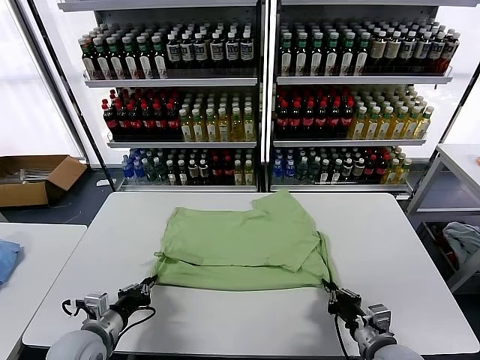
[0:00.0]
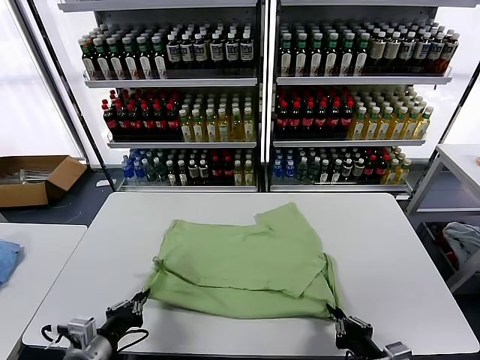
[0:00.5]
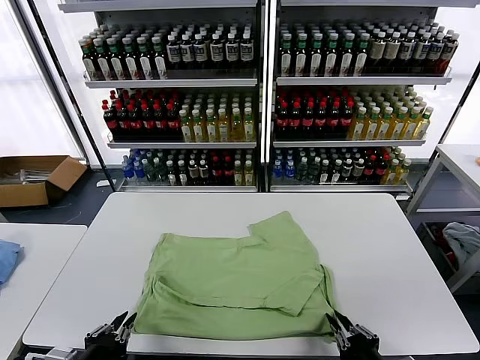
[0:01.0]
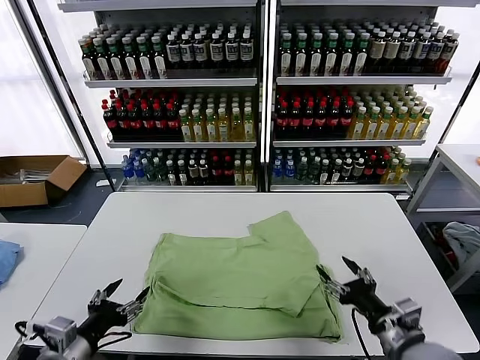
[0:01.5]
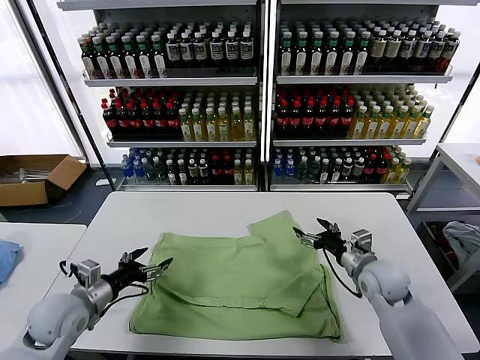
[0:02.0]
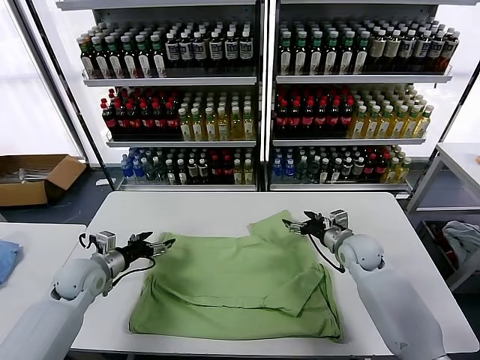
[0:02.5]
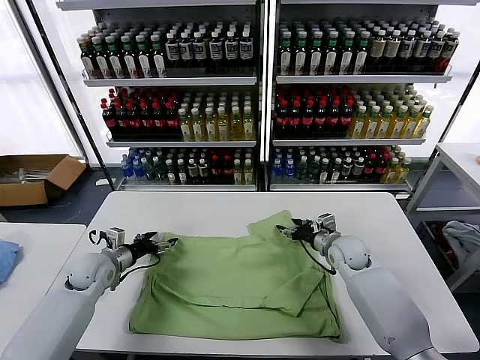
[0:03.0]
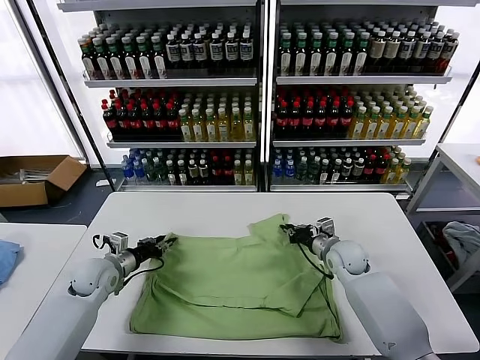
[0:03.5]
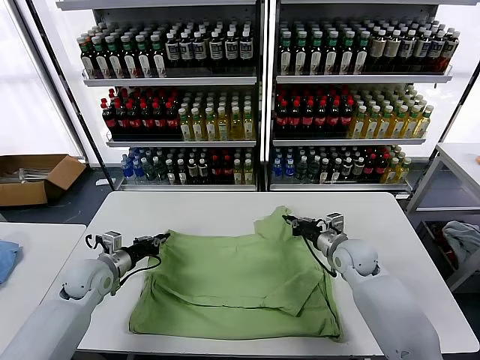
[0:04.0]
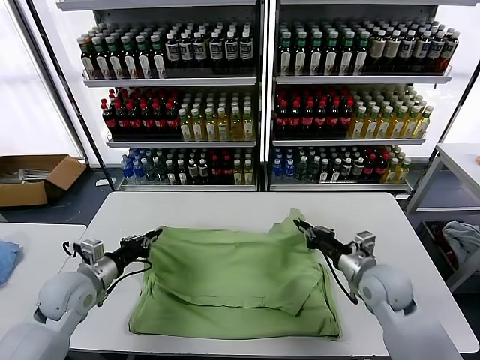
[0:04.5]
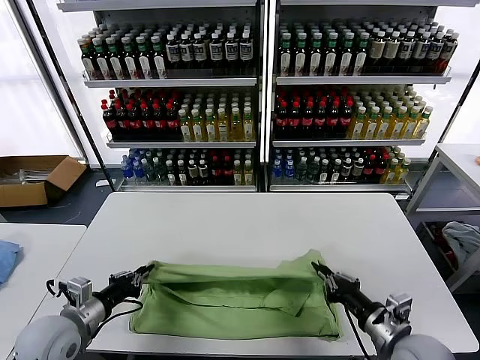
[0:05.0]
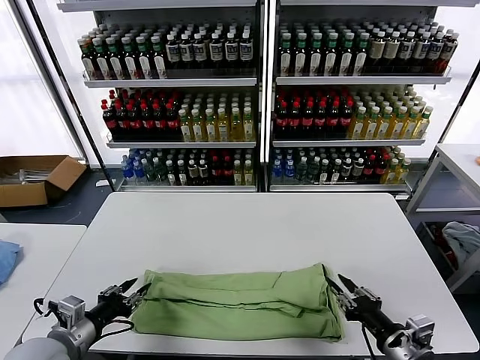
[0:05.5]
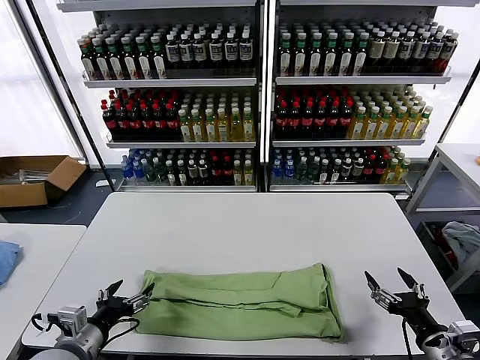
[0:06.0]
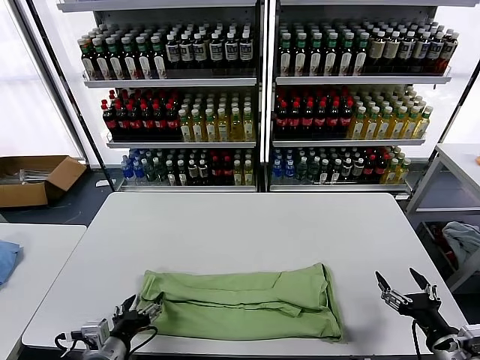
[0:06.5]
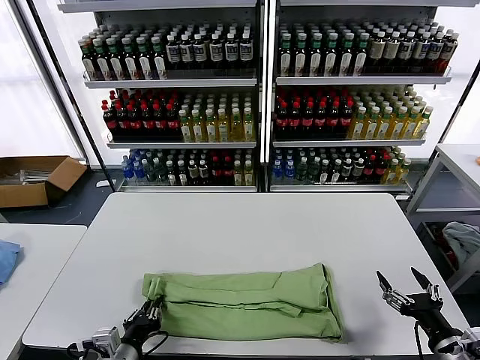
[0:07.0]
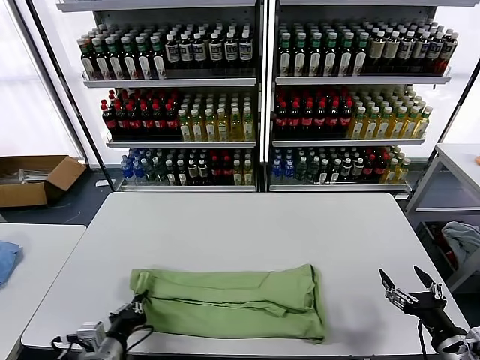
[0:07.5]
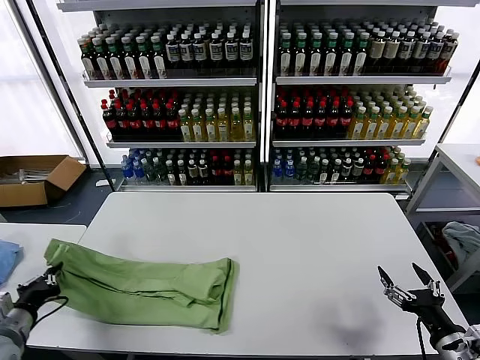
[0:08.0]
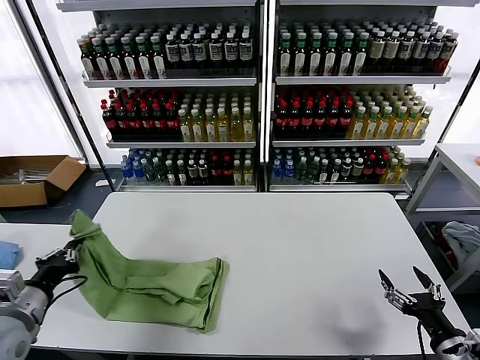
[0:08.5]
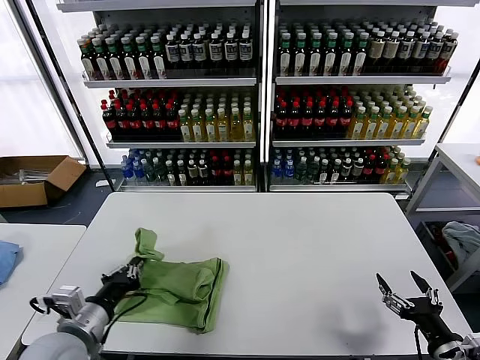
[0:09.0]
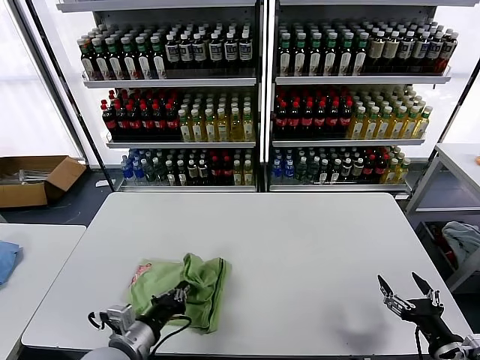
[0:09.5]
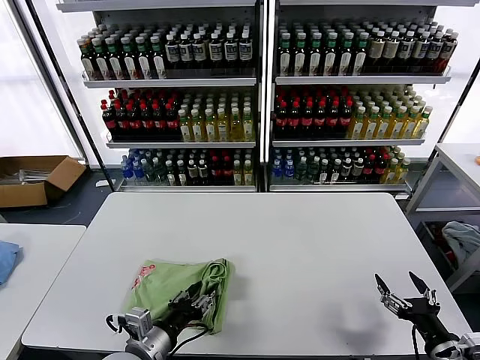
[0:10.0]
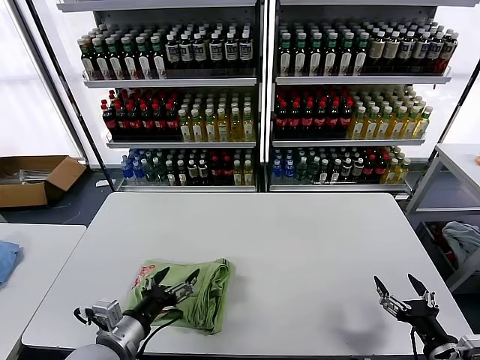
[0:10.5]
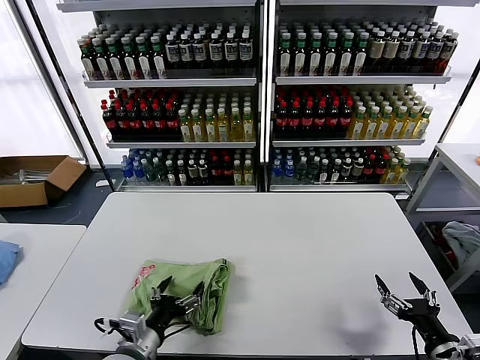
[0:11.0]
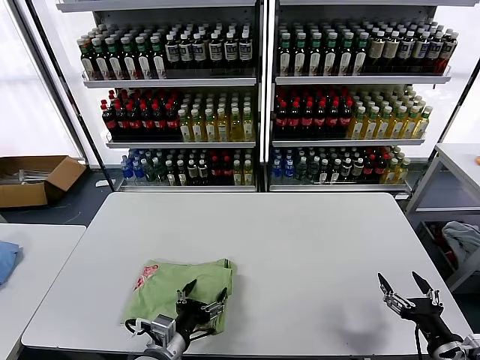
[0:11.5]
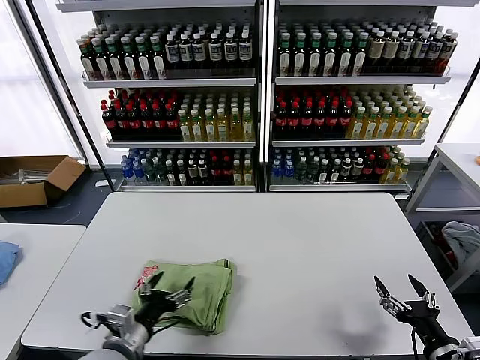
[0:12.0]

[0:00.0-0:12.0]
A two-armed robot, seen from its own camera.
Task of the whole recording: fold and organize the clothes.
Step, 1.5 to 3.5 s: use both grippers simultaneously to clamp the upper edge of the clothing fabric.
Step, 4.0 to 5.0 s: use both grippers to drag the upper edge of the fabric backward and fold it over the lower edge.
Step, 5.5 to 7.0 s: use the left gripper to clamp the left edge of the fabric.
Step, 7.5 to 10.0 s: use the left gripper to drag the left edge of the fabric to the left and folds it over the right edge.
0.0 to 2.0 s: The left gripper moves some 10 cm backward and comes back, and opens. Meanwhile the right gripper is displaced forward by about 20 cm, and opens.
2.0 to 4.0 s: The left gripper travels forward by approximately 10 cm, and closes its fingers, while the right gripper closes its fingers.
4.0 to 6.0 s: The grippers both shift backward by roughly 25 cm. The right gripper opens its fingers; the left gripper opens its fingers.
6.0 to 8.0 s: The left gripper heads to the left, covering roughly 15 cm, and closes its fingers.
8.0 to 10.0 s: The left gripper heads to the right, covering some 25 cm, and opens up.
10.0 to 12.0 s: The left gripper swings left and right, some 5 cm each way, with 2 reversals, and opens its fingers.

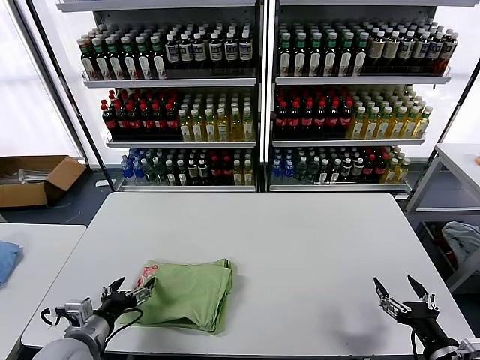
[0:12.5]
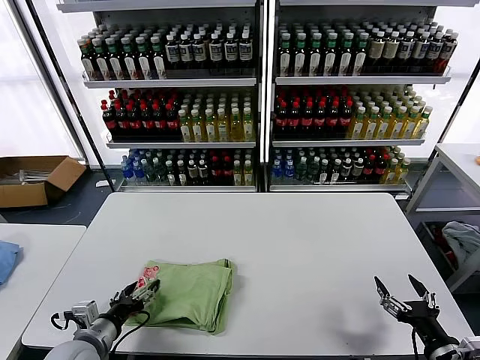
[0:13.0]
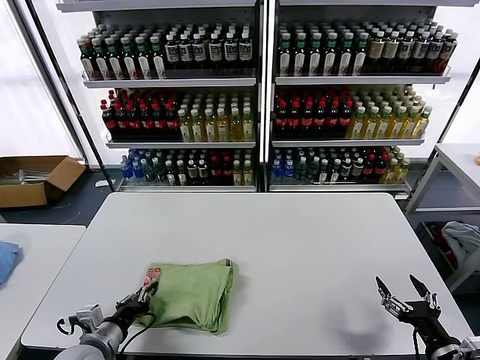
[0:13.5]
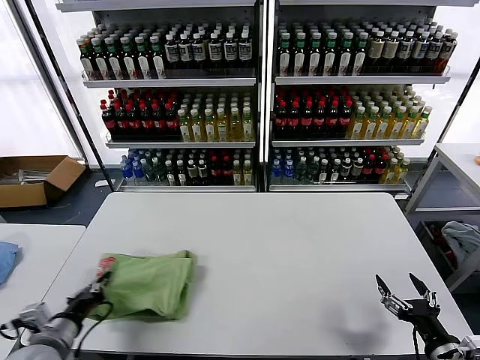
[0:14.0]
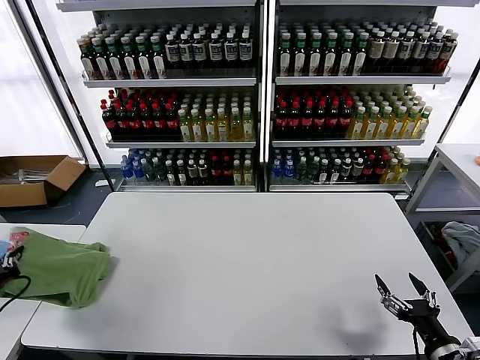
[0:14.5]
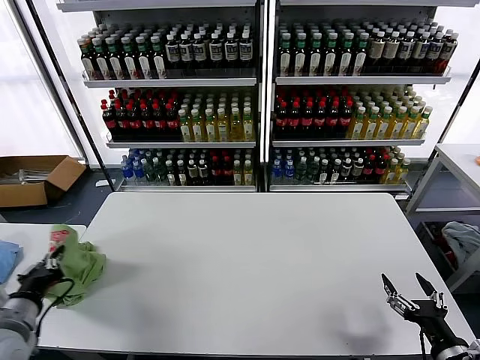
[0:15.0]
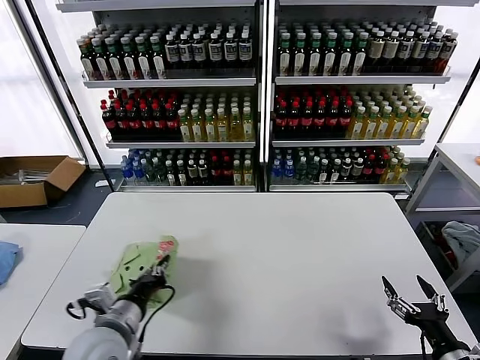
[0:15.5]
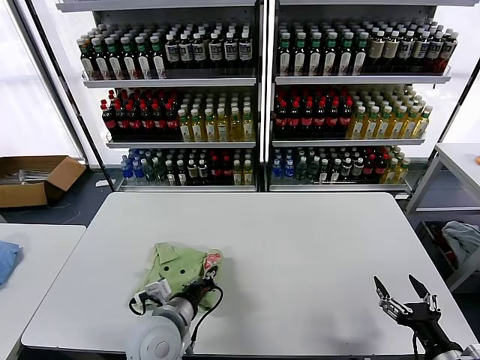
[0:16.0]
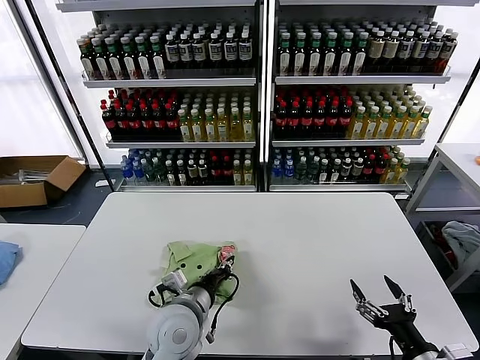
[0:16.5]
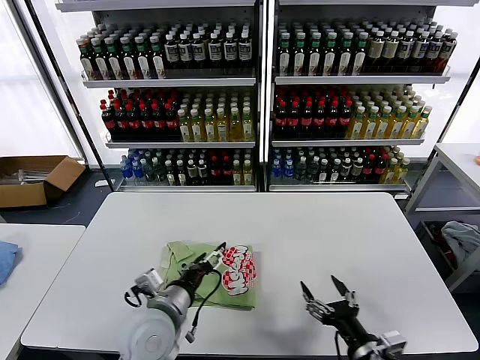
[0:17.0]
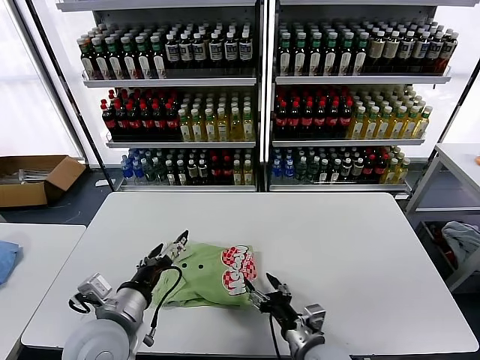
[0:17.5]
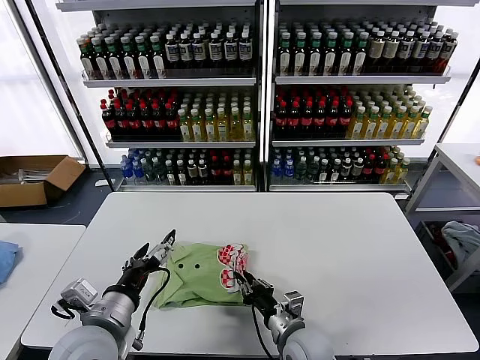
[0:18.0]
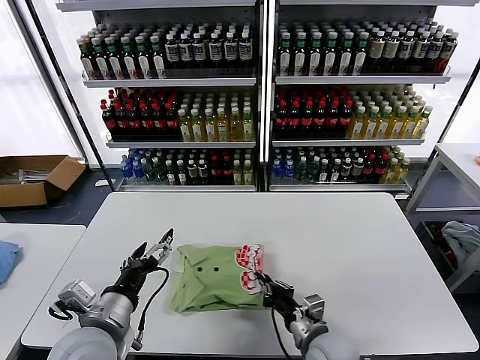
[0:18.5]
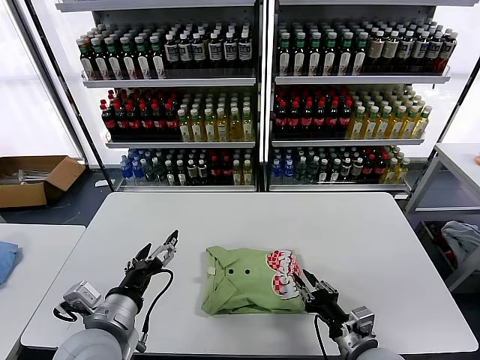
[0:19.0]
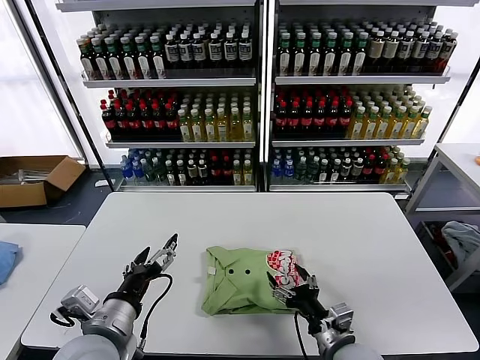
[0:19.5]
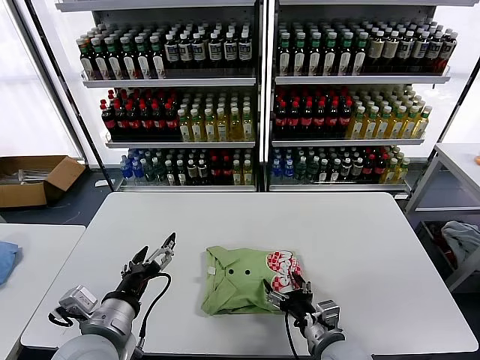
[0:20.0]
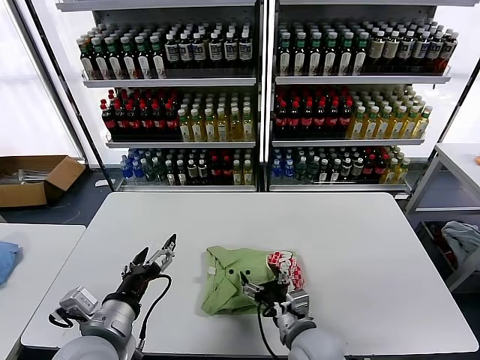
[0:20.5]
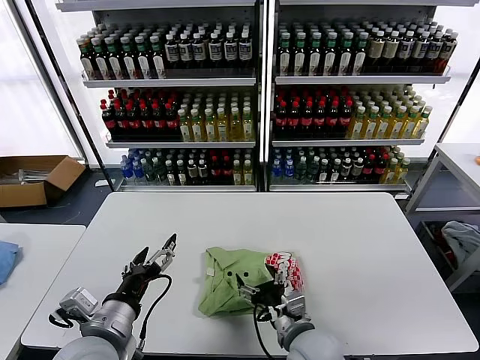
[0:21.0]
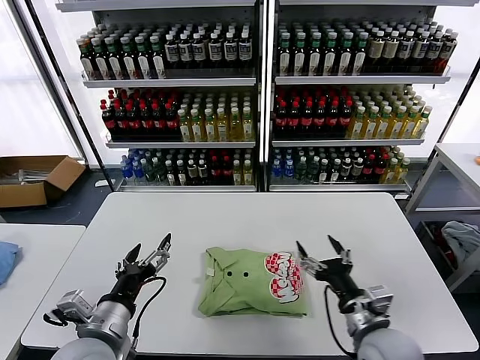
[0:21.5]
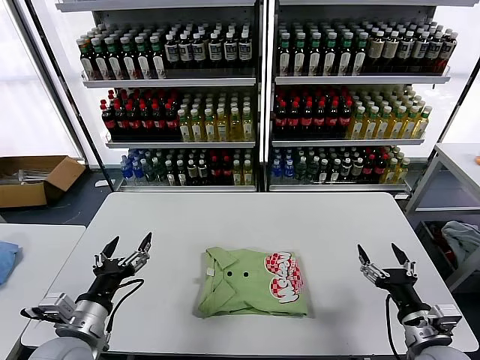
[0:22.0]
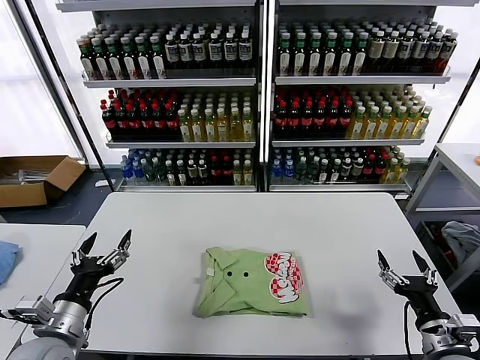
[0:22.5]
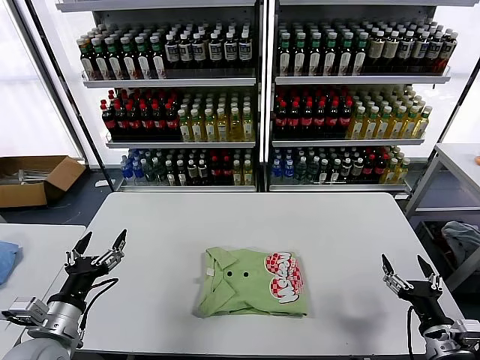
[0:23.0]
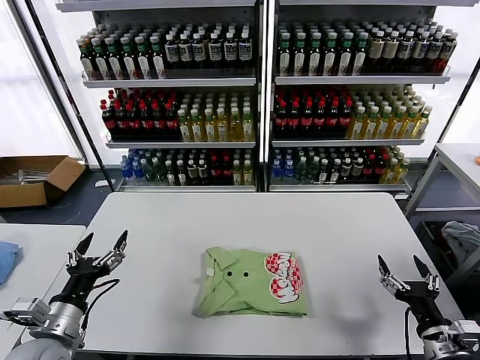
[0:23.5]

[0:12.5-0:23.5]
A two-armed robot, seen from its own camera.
Task of the whole recording: fold and organize the clothes.
Step, 12.5 to 16.5 s: Flip the folded clothes over with left gripper.
Step, 17.0 to 20.5 s: Drag the clothes to the center of the table.
12.5 to 14.5 s: The left gripper goes approximately 20 cm to the left and upward, and closes its fingers.
14.5 to 16.0 s: The left gripper goes some 30 cm to the right.
16.0 to 18.0 s: The left gripper is displaced upward and to the left by approximately 10 cm, and opens. Meanwhile the right gripper is displaced to the left and forward by roughly 30 cm, and closes.
18.0 to 20.0 s: The right gripper goes some 5 cm to the right, and opens up.
20.0 to 21.5 s: The right gripper is displaced upward by some 5 cm.
21.5 to 23.5 s: The right gripper heads to the right, covering approximately 15 cm; the left gripper moves to the left, approximately 10 cm.

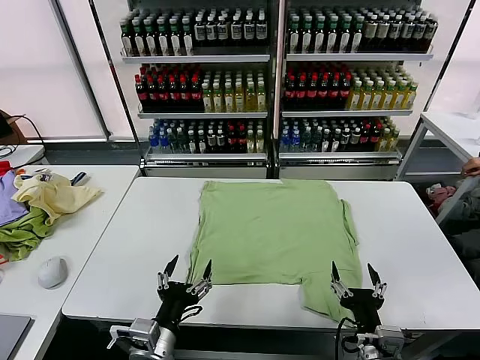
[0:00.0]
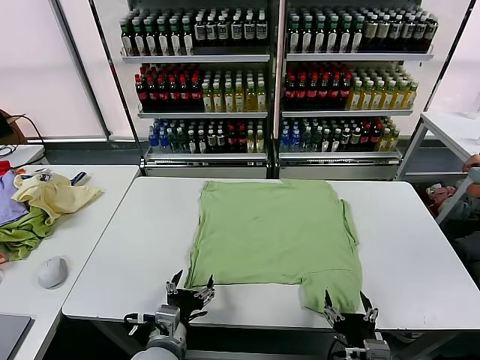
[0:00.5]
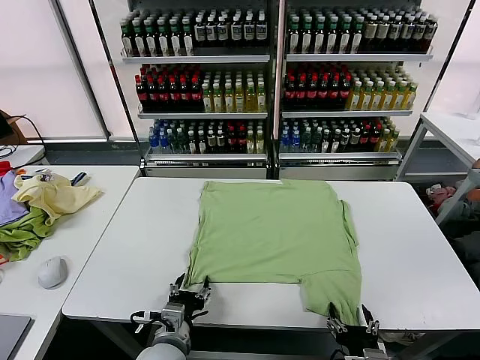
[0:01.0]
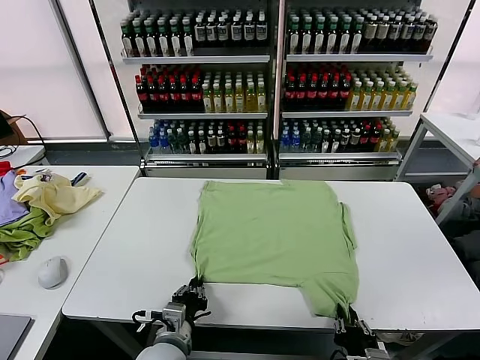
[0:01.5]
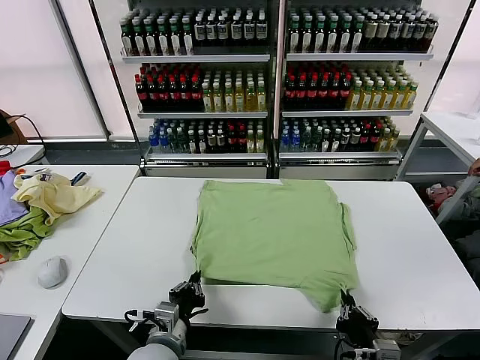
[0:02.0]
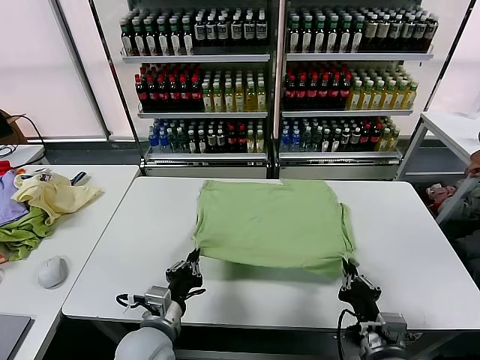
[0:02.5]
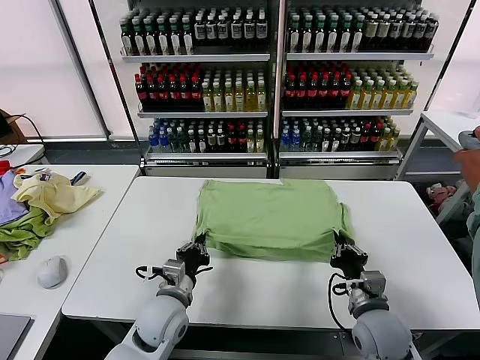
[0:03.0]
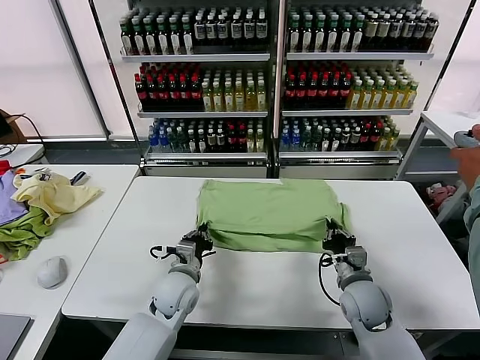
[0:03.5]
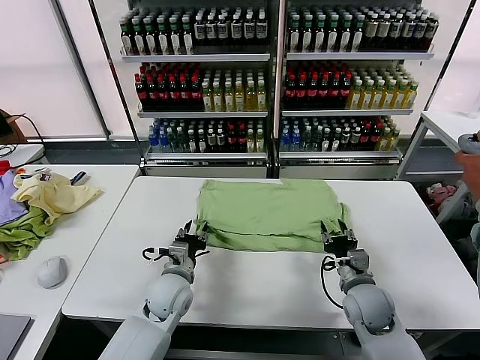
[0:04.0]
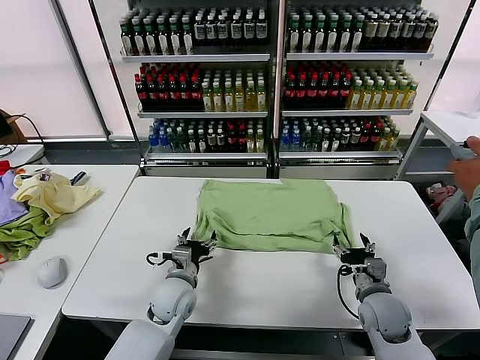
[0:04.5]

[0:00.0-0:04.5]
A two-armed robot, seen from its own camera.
Task of the whole recording: fold and organize the clothes.
Step, 0.0 to 1.5 s: use both grippers simultaneously to clamp the lower edge of the clothing fabric.
Step, 2.0 to 3.5 s: use both grippers to drag the lower edge of the fabric forward and fold it over the upper edge.
2.0 to 4.5 s: The grippers both shift forward by about 15 cm. The left gripper opens its fingers, while the right gripper opens.
